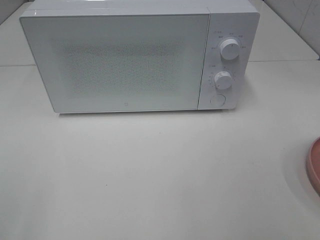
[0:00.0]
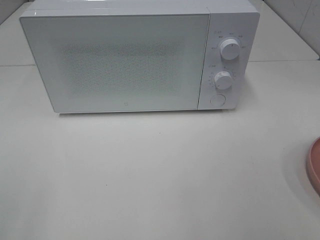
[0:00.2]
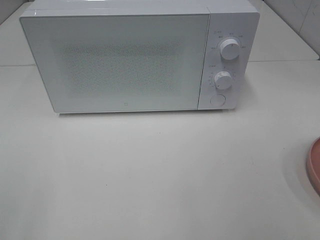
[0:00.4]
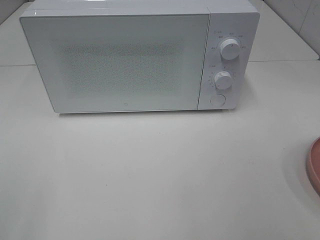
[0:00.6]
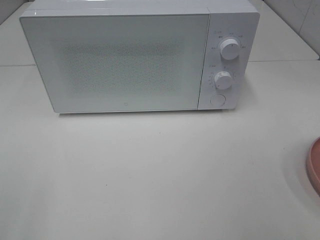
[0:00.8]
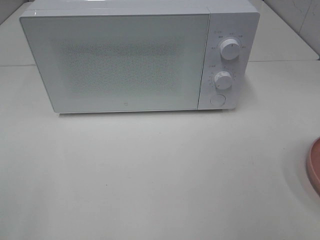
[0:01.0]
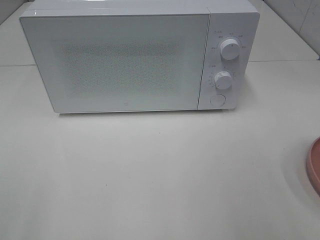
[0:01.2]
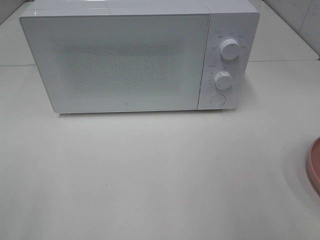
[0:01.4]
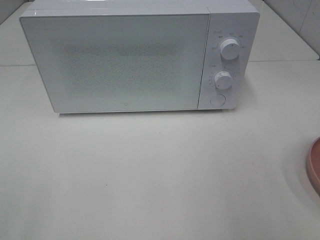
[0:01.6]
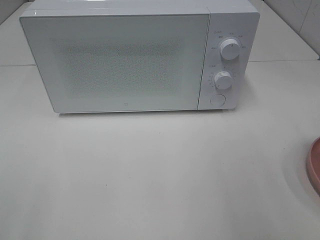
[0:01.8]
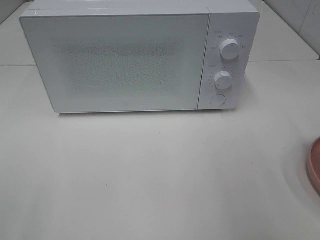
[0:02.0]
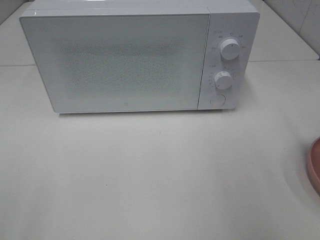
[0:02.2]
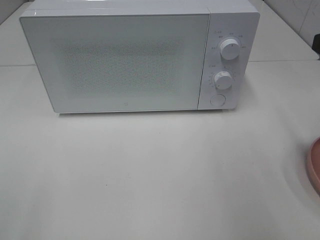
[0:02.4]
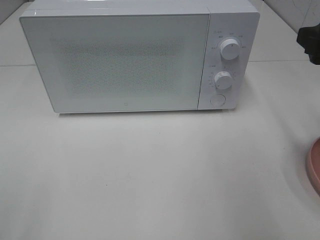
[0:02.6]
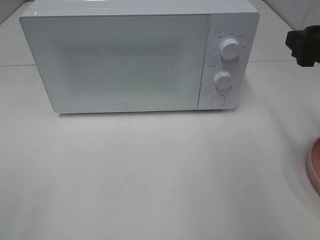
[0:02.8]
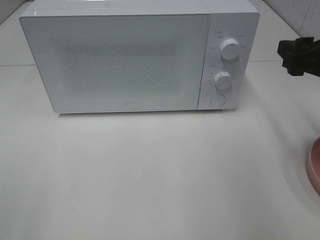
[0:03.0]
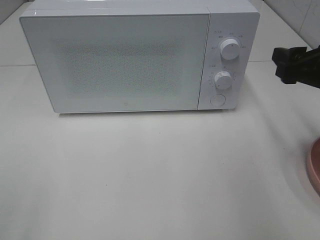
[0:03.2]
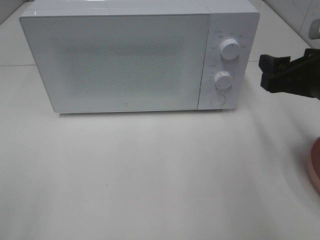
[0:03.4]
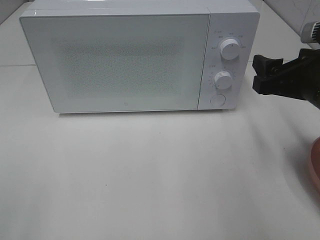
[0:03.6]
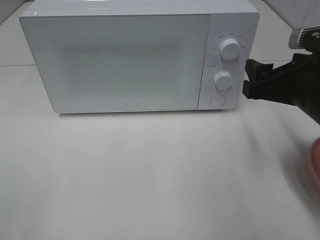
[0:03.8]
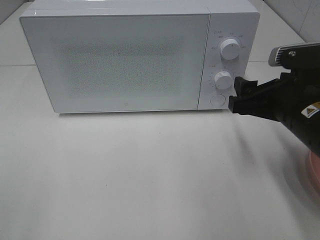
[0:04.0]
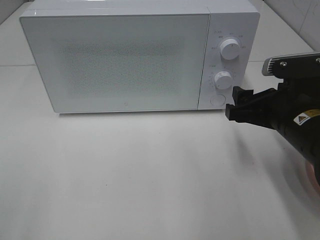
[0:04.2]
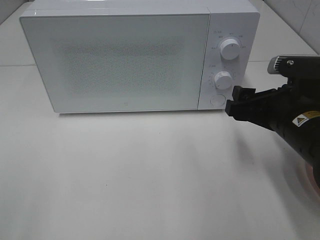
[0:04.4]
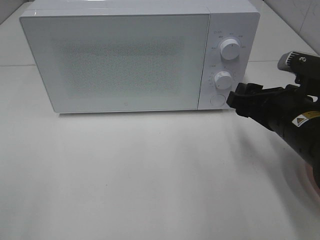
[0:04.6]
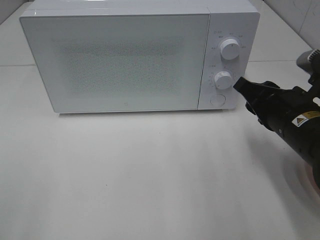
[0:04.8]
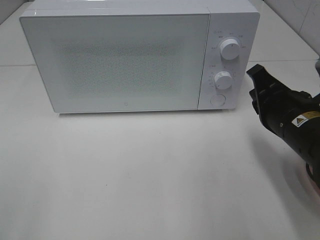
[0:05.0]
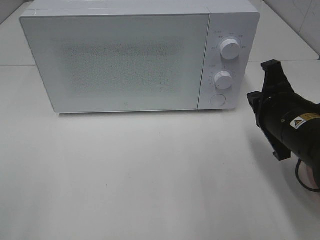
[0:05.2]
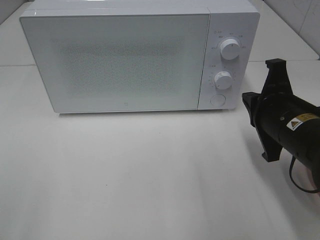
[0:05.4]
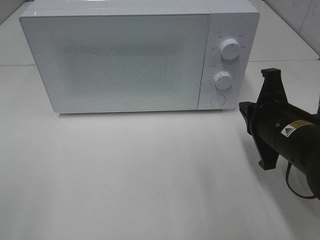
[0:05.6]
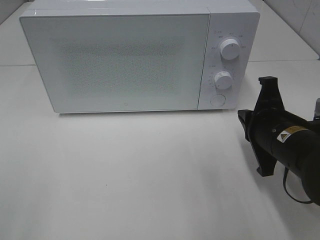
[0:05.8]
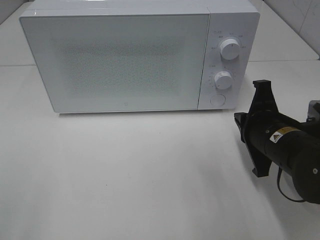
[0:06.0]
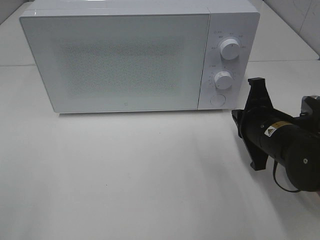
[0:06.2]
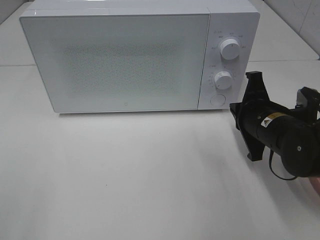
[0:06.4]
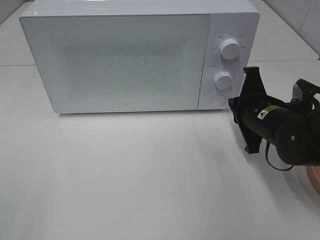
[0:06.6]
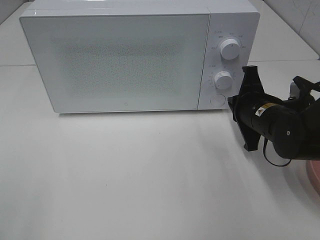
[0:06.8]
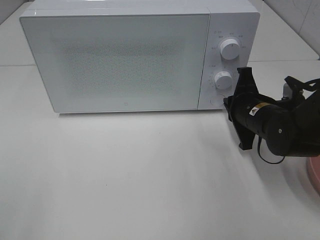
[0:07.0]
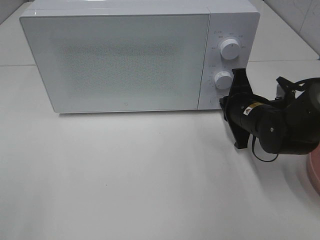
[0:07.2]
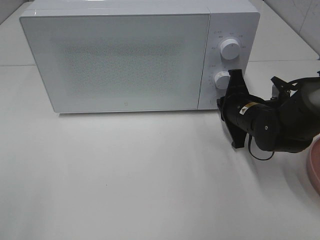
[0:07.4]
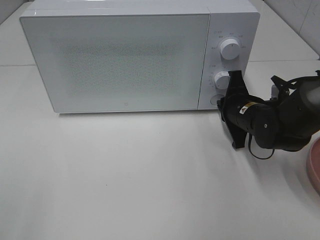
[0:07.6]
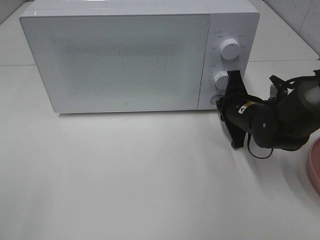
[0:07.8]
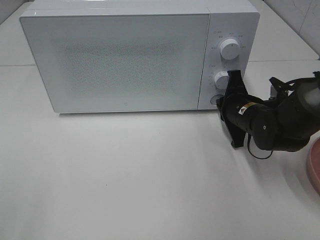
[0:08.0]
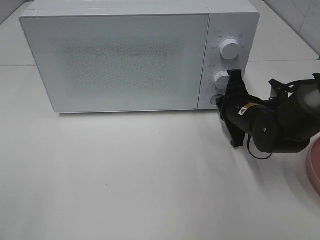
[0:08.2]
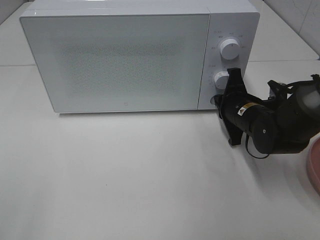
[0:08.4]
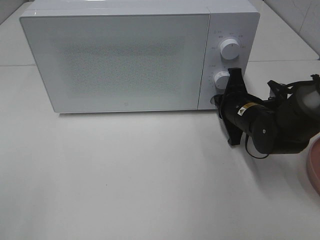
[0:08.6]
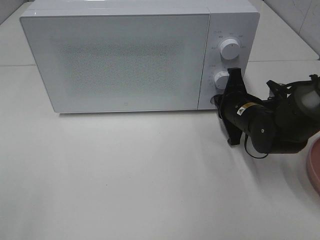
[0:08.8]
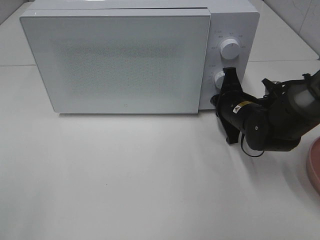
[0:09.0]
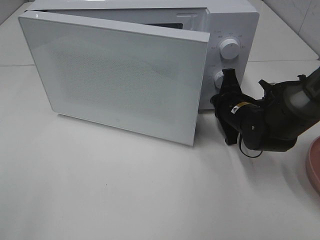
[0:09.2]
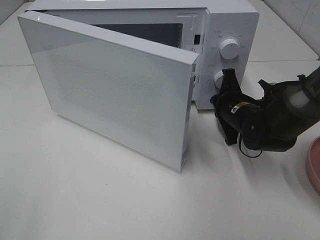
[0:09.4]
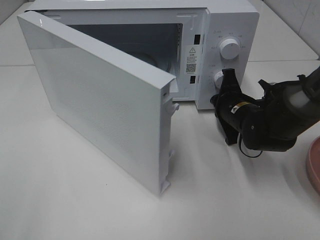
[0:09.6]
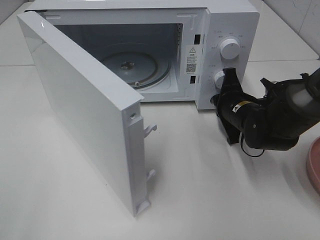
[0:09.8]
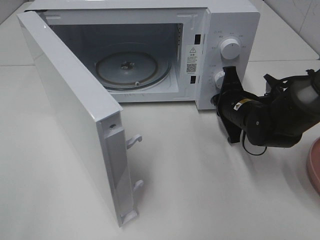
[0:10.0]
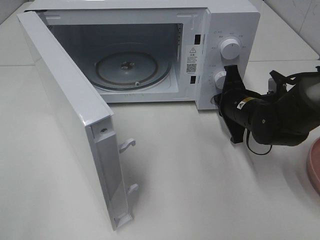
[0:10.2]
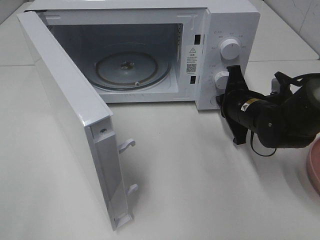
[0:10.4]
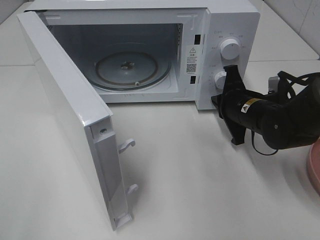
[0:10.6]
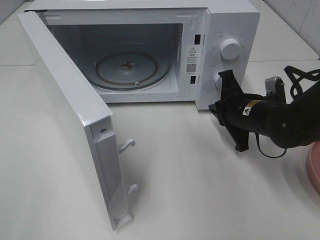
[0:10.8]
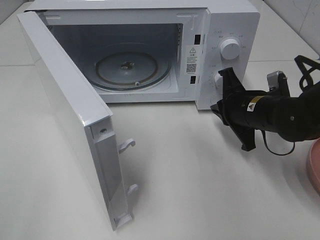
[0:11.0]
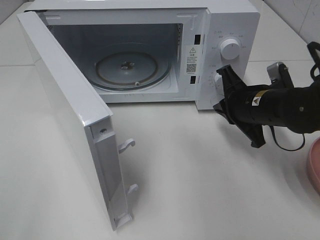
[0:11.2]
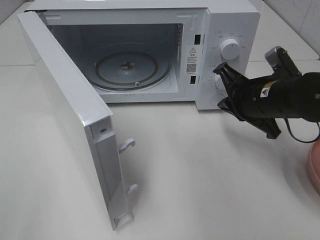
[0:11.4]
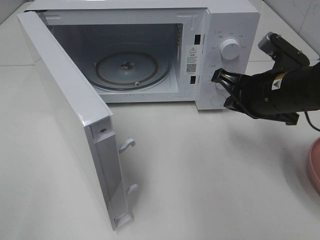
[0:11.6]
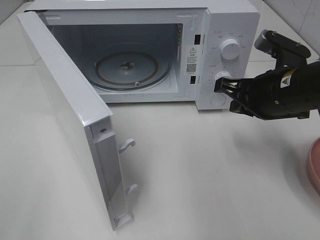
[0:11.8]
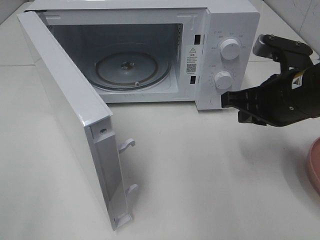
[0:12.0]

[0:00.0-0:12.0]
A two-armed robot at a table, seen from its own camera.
Task of the whole recording: Heat the burger.
Step, 0:00.0 to 0:10.6: Right hand: press the switch.
0:01.6 to 0:03.0: The right gripper heads forward and downward, covering some 15 cm.
0:03.0 to 0:04.4: The right gripper shifts roughly 10 cm to the left and downward.
0:04.4 to 0:06.0: The right gripper closes its fingers.
0:06.0 to 0:07.6: The right gripper heads forward, covering roughly 10 cm.
0:07.6 to 0:09.0: The grippers move only a little.
0:10.4 to 0:12.0: The right gripper moves upward and backward, about 15 cm.

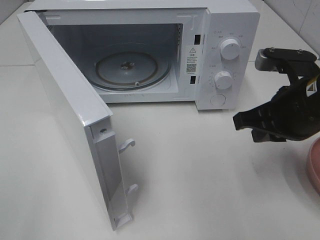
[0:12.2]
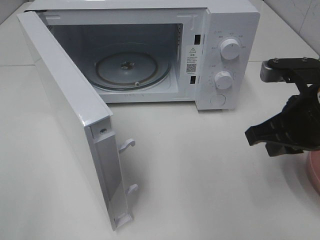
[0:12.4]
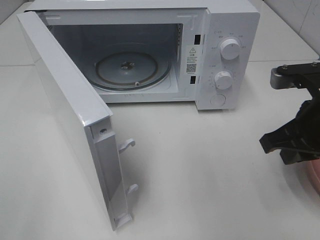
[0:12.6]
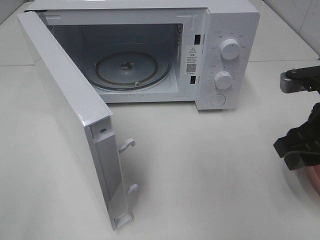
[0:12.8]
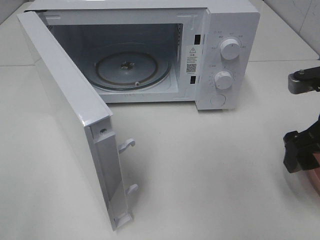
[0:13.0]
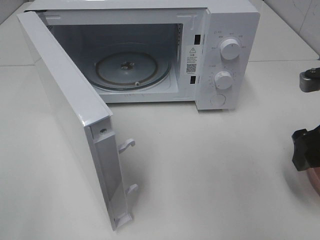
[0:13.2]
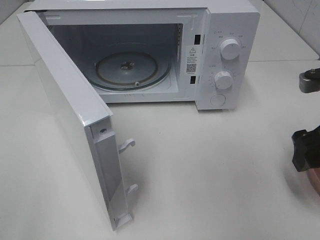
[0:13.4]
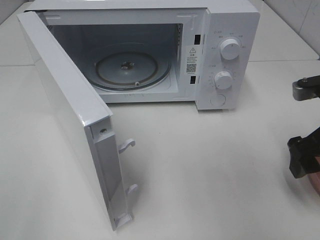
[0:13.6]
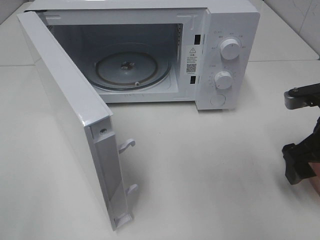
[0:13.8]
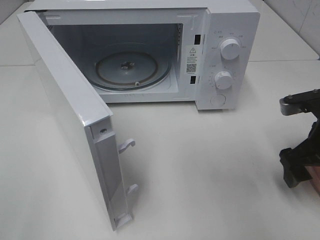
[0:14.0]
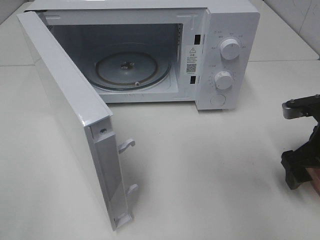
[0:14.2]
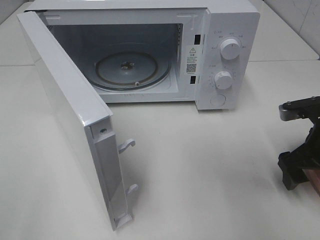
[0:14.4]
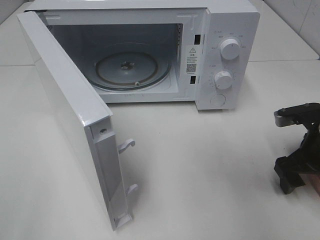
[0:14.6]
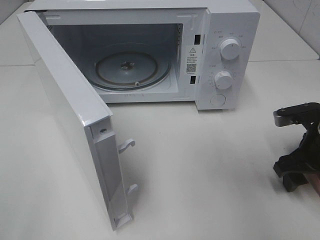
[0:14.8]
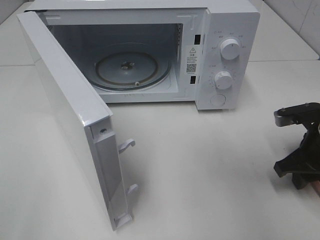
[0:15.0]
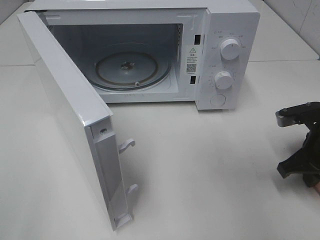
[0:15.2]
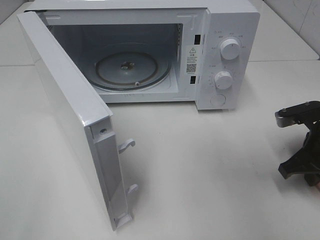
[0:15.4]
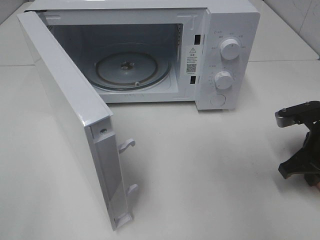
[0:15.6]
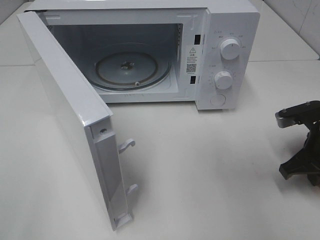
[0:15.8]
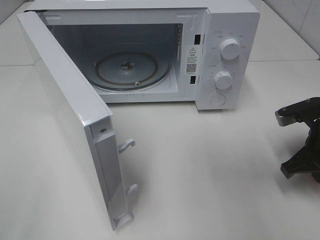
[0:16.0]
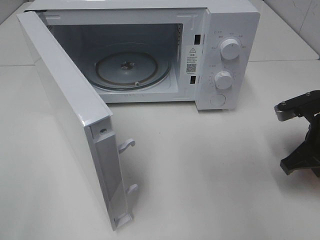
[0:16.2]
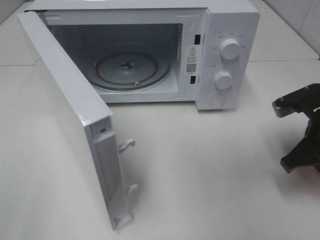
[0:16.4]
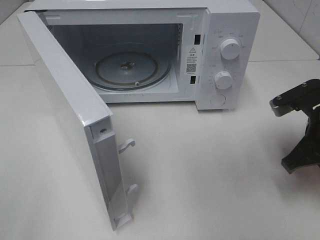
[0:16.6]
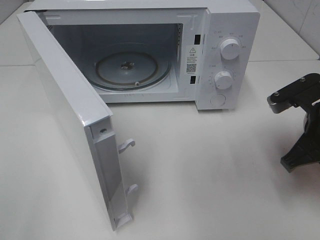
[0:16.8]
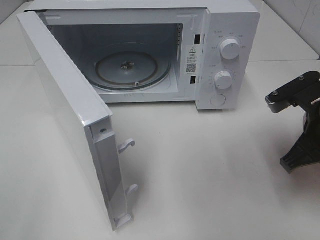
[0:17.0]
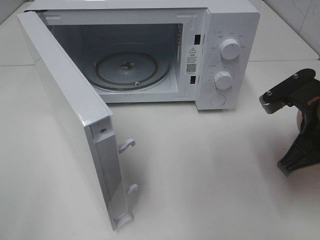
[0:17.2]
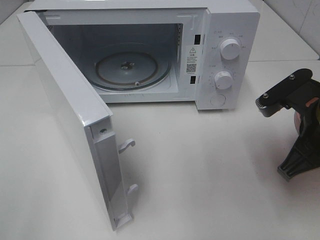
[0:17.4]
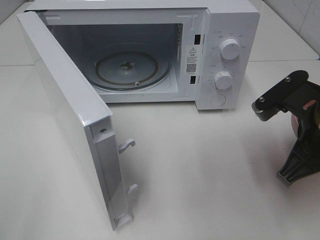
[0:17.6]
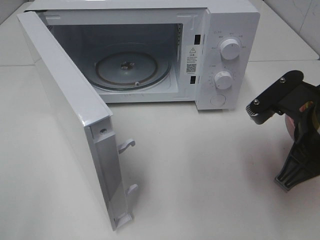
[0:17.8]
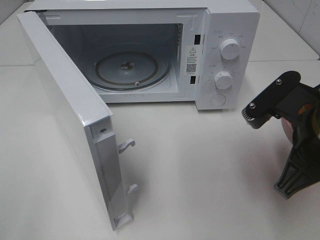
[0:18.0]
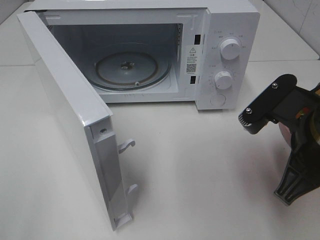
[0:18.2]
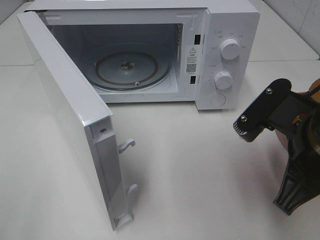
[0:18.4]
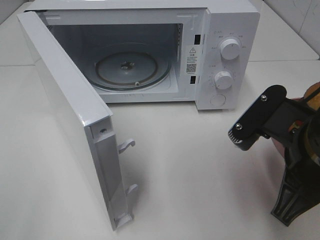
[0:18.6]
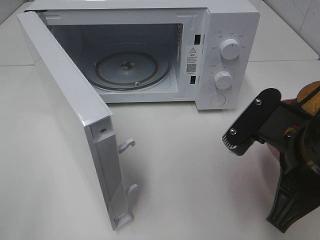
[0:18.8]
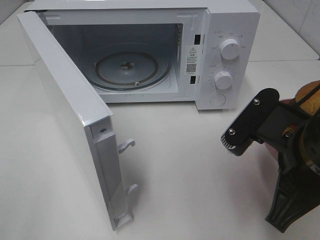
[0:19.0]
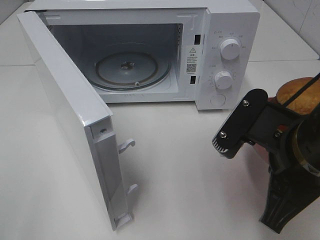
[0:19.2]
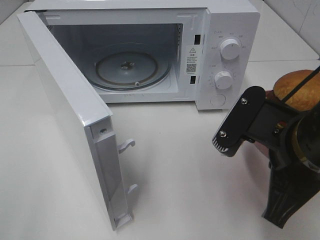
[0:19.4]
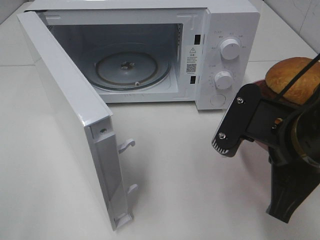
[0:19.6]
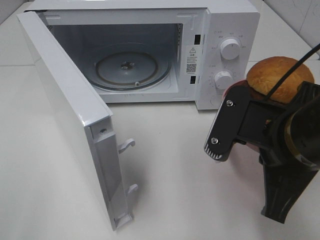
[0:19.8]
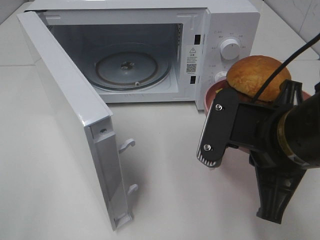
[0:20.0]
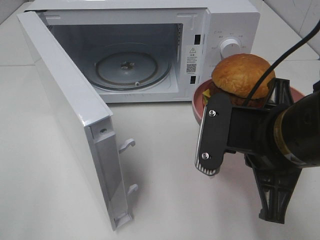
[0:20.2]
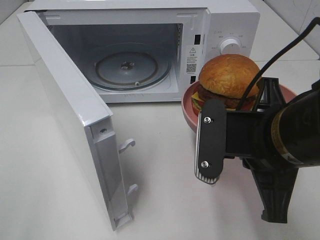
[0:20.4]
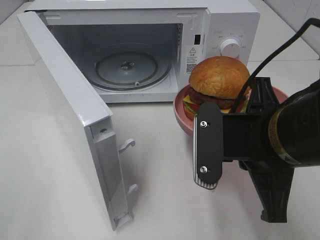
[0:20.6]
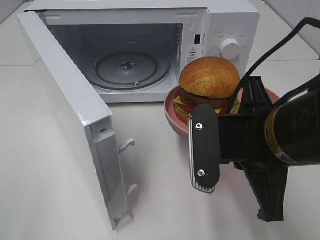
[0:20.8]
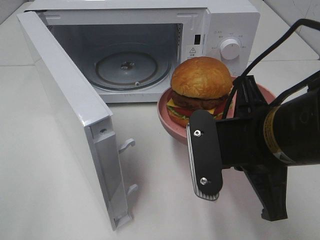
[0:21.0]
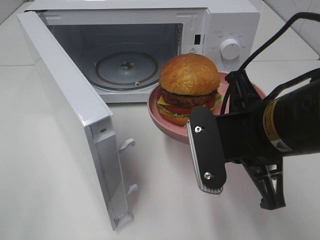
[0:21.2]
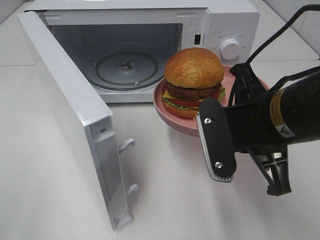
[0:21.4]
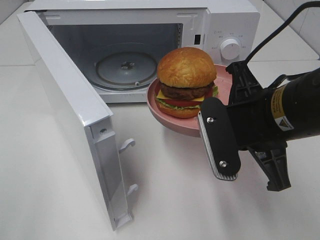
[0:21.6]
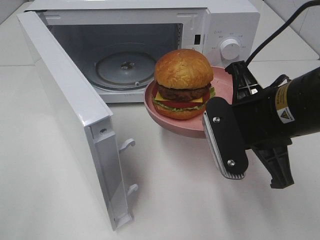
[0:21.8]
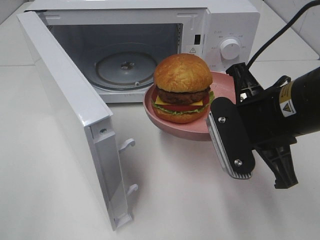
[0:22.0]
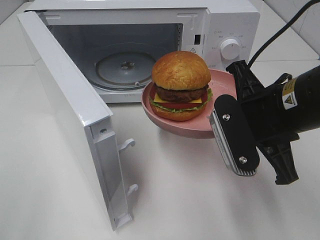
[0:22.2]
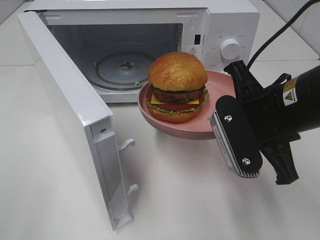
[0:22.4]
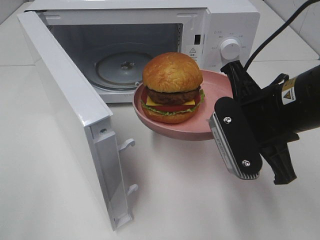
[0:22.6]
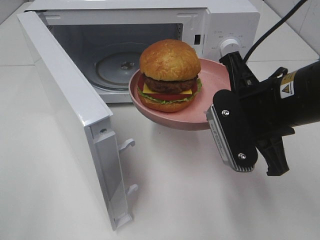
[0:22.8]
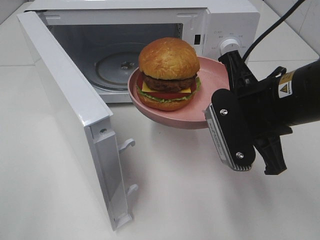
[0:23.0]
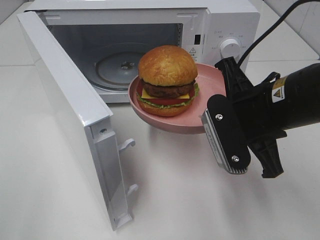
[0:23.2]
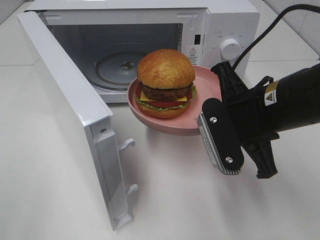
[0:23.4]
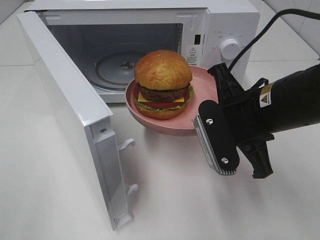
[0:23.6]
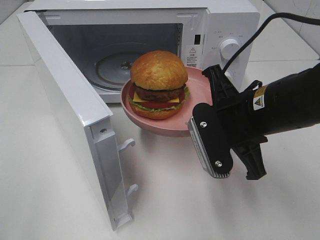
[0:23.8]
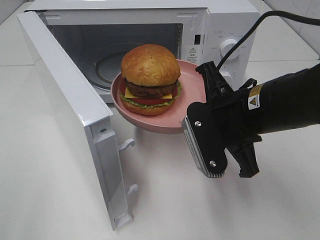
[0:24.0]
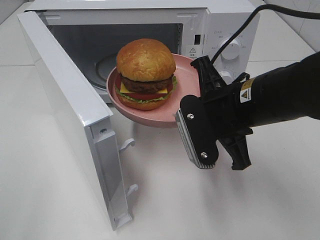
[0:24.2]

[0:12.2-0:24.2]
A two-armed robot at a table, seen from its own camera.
Task of the whole recording: Heat the burger.
Step, 0:12.2 to 0:15.4: Right hand: grab the plate with the hamburger.
0:12.2 to 0:13.8: The right gripper heads to the right, covering about 5 cm, and opens its fingers.
0:13.8 to 0:15.2: The right gripper travels downward by some 5 cm, and closes.
0:15.2 to 0:16.6: The right gripper moves upward, approximately 5 cm.
0:16.6 to 0:18.2: The right gripper is displaced to the left, backward and upward by some 10 cm.
0:21.2 to 0:22.6: There are only small adjustments of the grippers.
